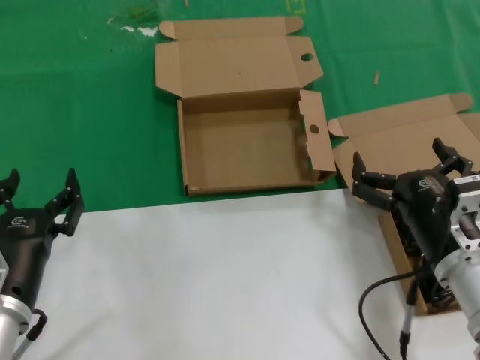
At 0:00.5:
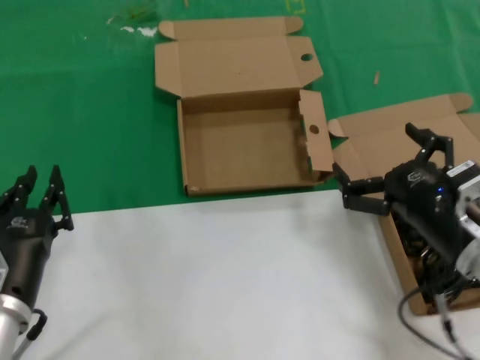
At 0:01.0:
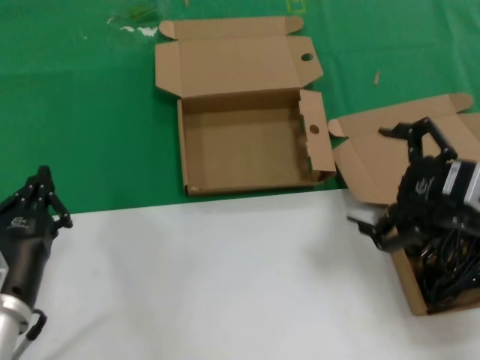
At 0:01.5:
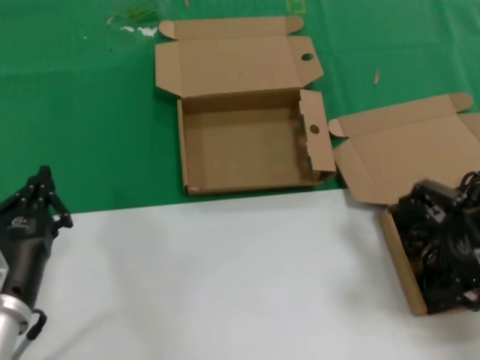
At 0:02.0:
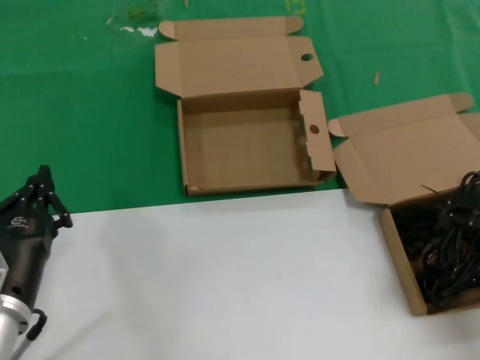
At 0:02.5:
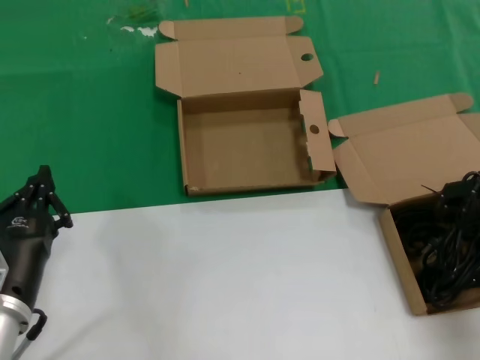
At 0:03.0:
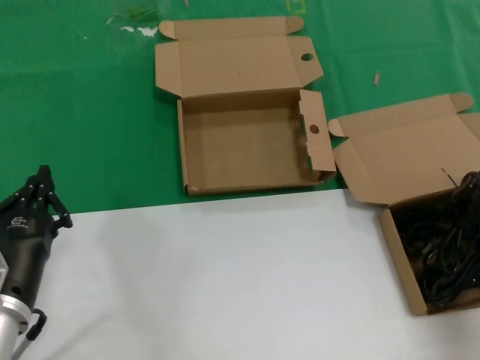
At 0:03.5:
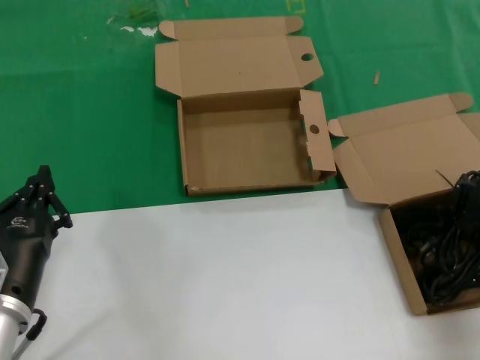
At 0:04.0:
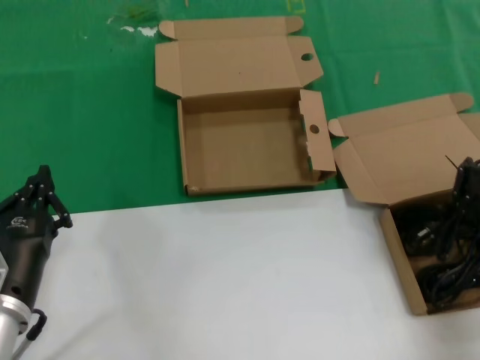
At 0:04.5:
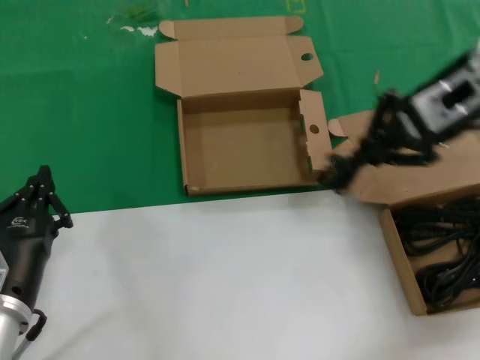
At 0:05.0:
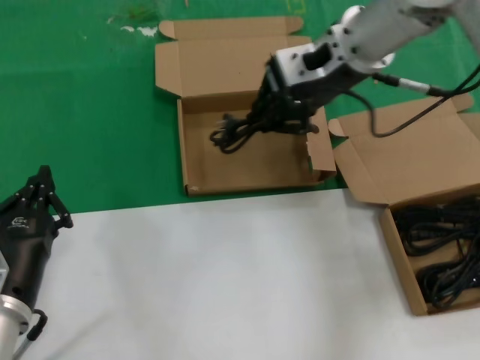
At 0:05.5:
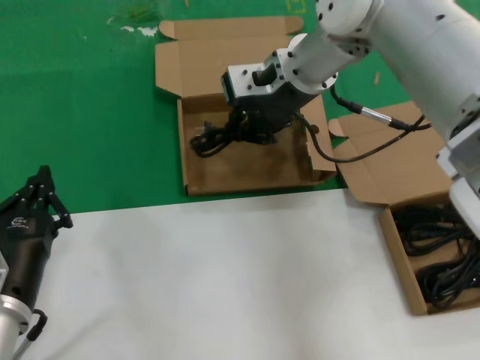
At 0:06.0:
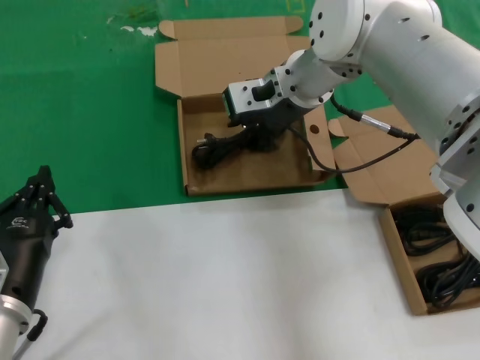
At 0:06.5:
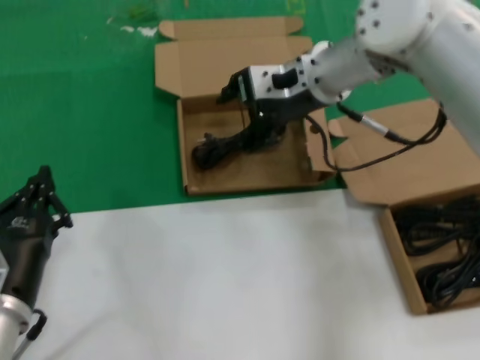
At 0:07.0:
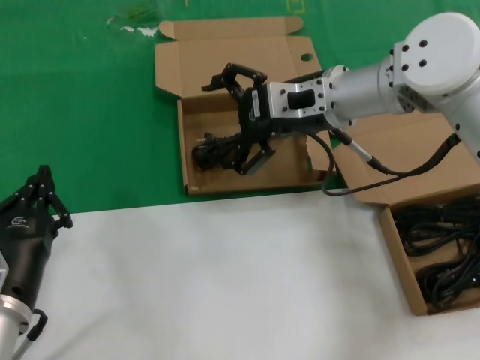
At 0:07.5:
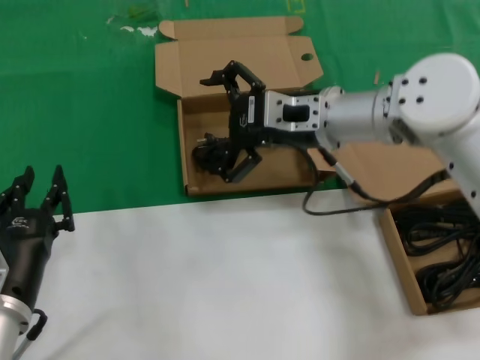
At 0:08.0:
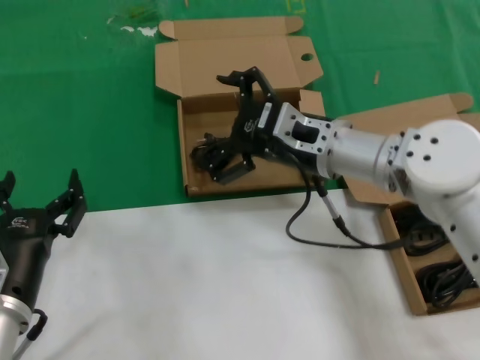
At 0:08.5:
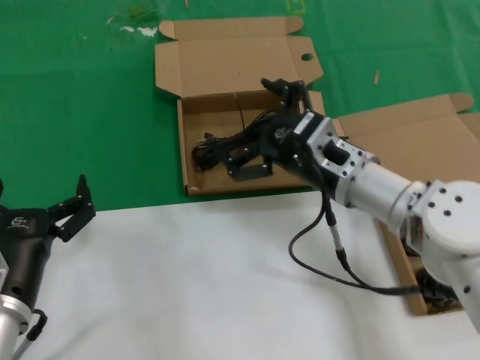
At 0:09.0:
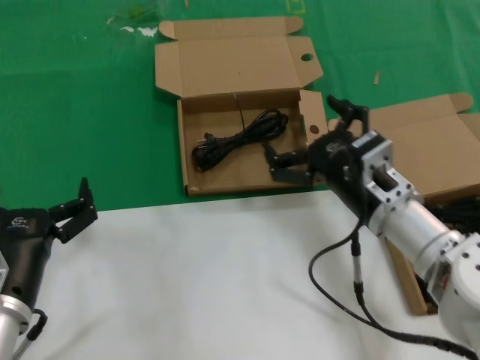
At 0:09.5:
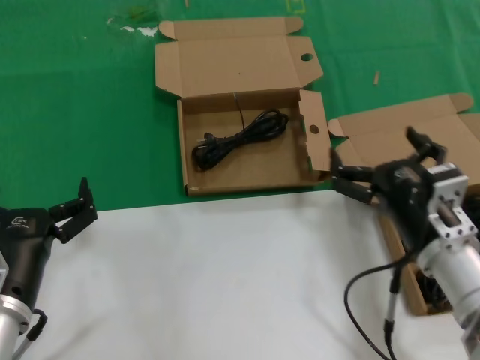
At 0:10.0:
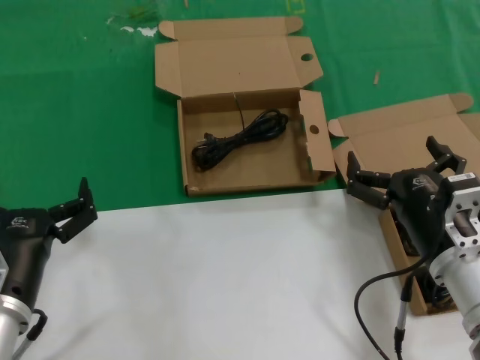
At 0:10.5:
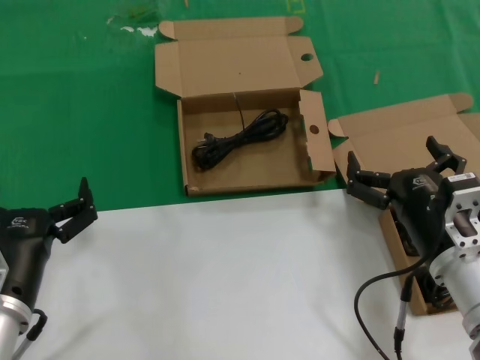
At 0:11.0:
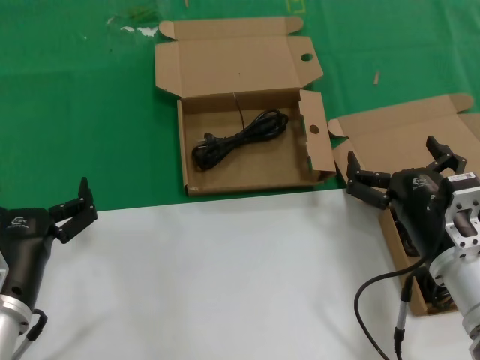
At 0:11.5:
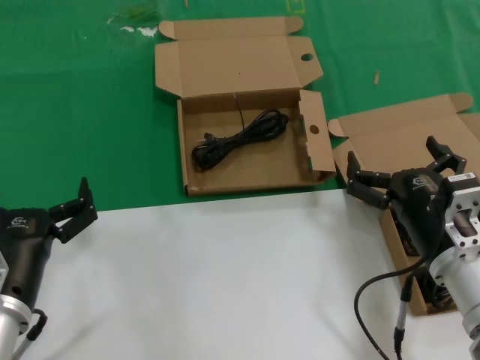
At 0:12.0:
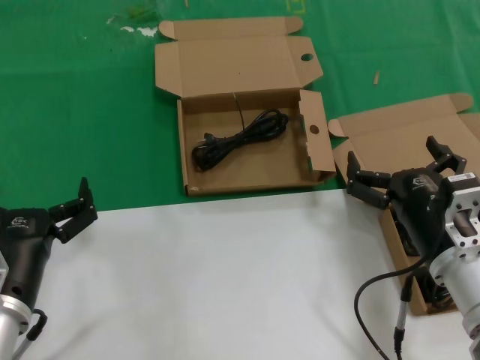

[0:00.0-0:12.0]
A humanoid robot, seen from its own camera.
Task of the whole recording: take the parts from the box containing them and put them into an empty box.
Step, 0:00.0 to 0:03.5: Grasp the data cable.
Step, 0:04.0 to 0:06.5: Place the data cable in the another box.
0:00.0 to 0:02.0: The right hand travels upward and to the right by about 25 cm.
0:02.0 to 0:04.0: The right hand is displaced forward by some 5 cm.
0:04.0 to 0:06.0: The right hand is displaced to the left and forward by about 30 cm.
0:06.0 to 0:08.0: The right hand travels backward, downward and to the right by about 15 cm.
0:08.0 to 0:10.0: The right hand shifts approximately 20 cm backward, downward and to the right.
0:10.0 to 0:12.0: The two hands keep their place.

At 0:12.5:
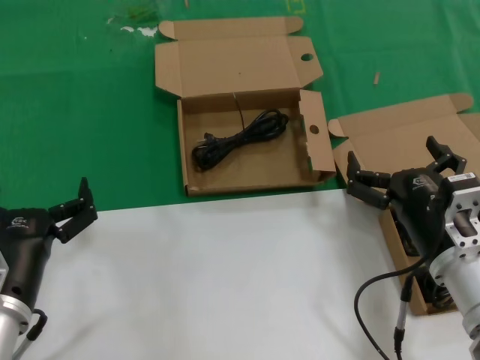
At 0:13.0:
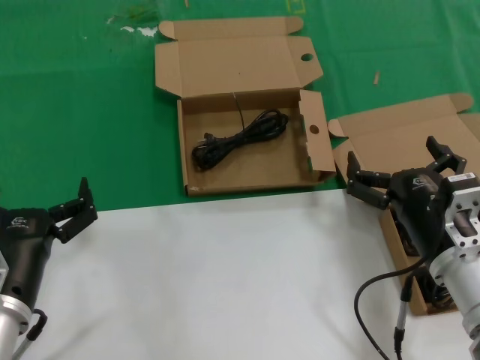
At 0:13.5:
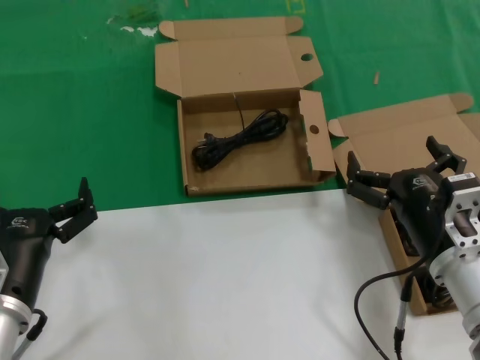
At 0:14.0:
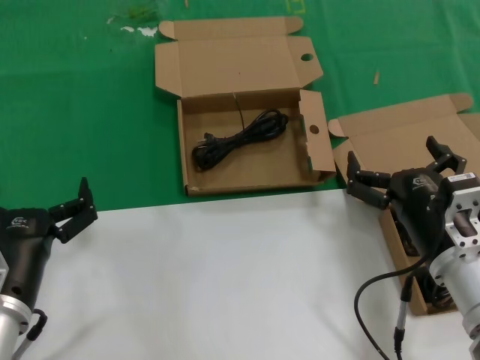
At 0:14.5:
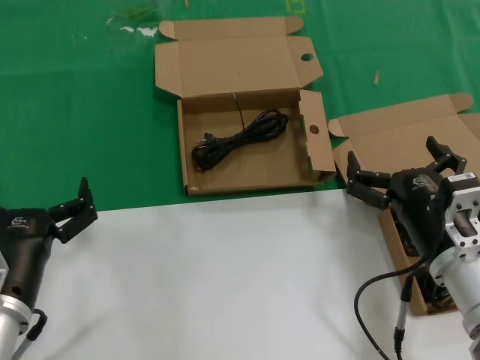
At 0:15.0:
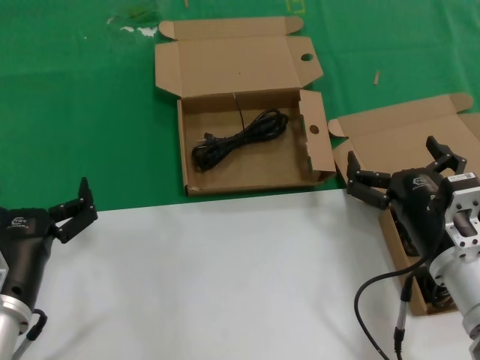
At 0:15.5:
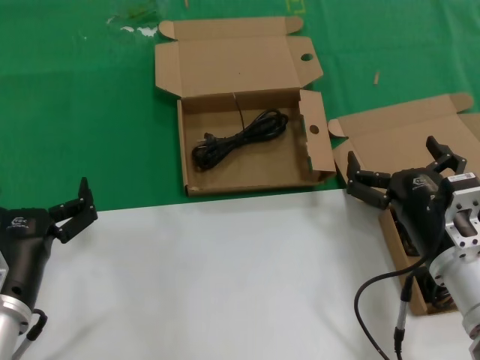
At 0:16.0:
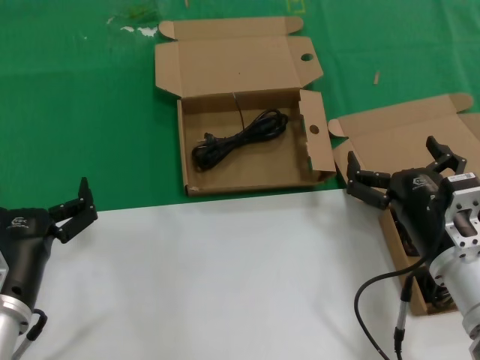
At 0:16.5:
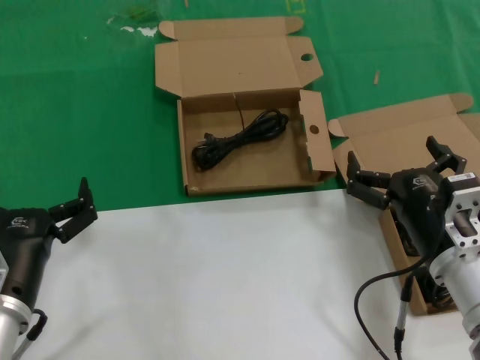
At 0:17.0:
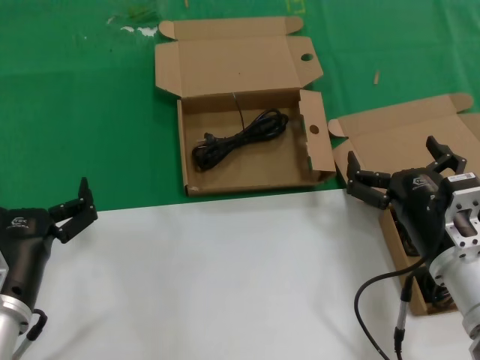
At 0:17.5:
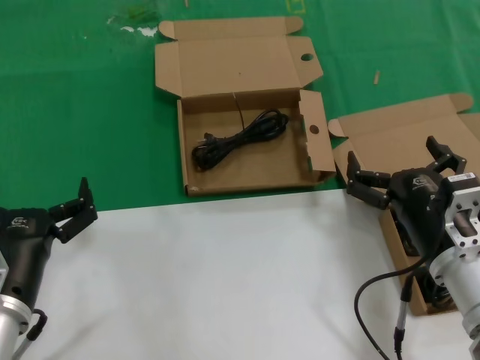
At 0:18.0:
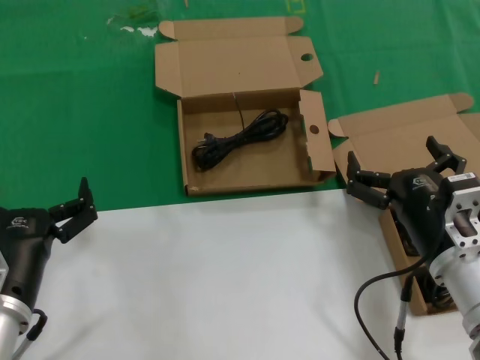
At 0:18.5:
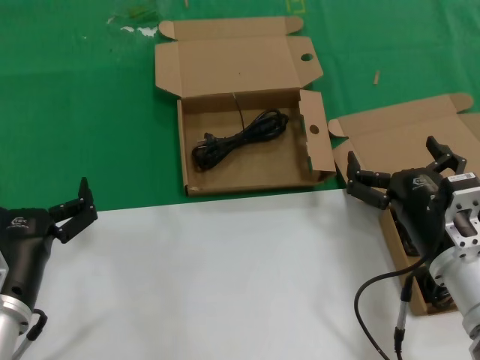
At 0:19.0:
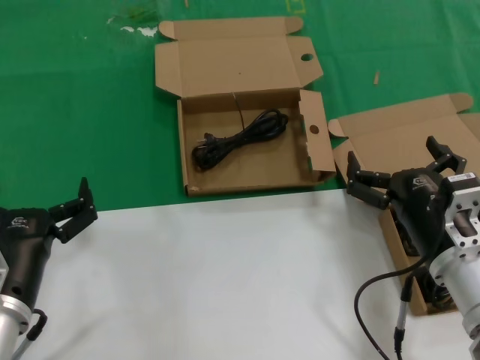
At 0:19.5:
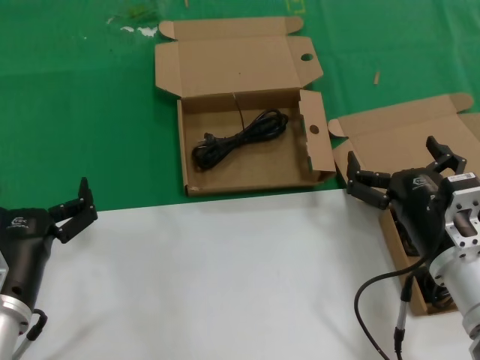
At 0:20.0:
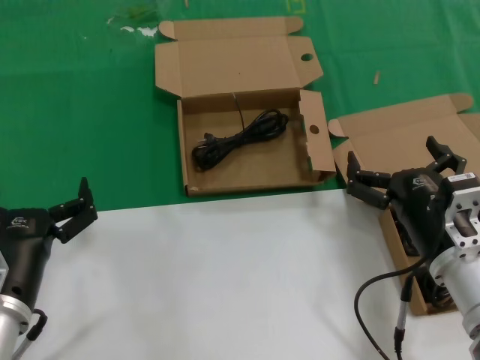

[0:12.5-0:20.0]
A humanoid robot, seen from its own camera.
Task of the whole recording: take the parts from the box containing them and put them into an empty box.
0:12.5 to 0:20.0: Neither hand changes place.

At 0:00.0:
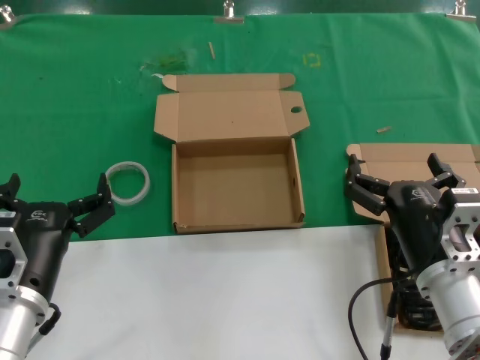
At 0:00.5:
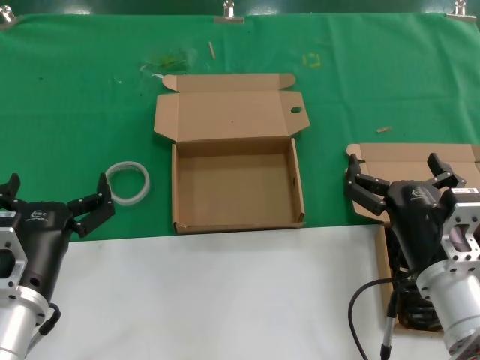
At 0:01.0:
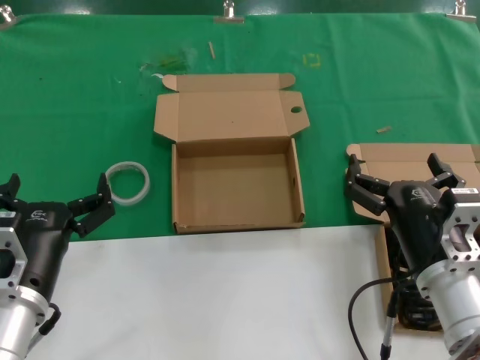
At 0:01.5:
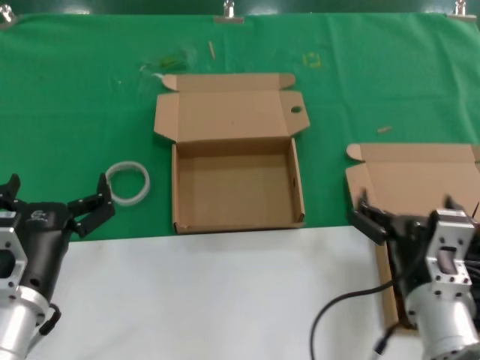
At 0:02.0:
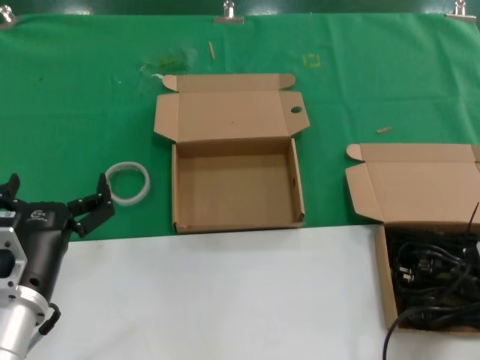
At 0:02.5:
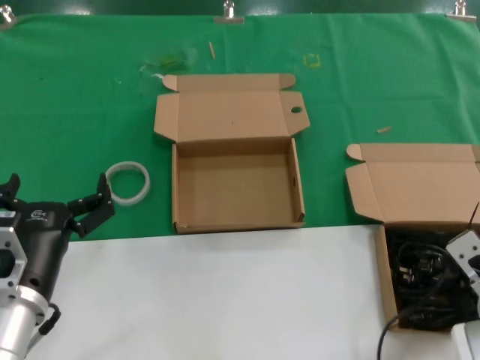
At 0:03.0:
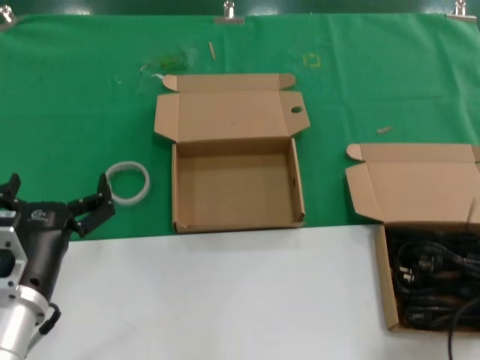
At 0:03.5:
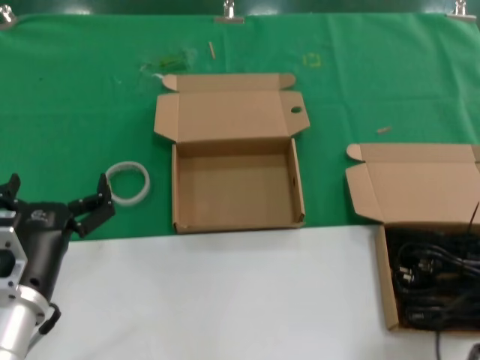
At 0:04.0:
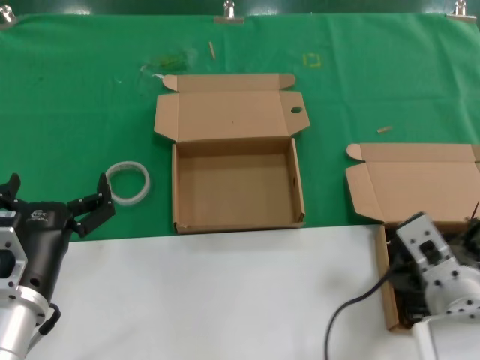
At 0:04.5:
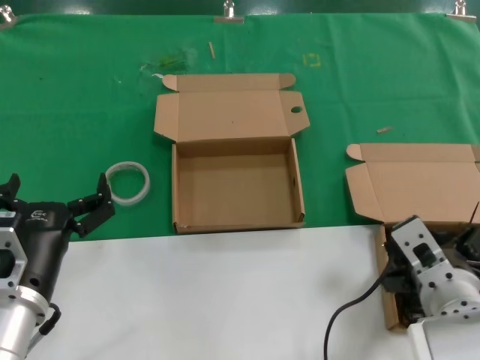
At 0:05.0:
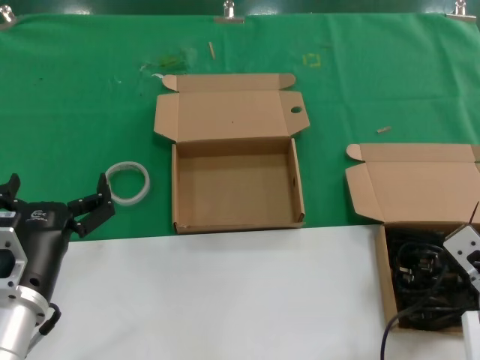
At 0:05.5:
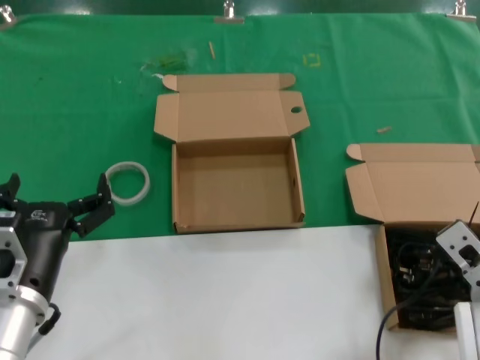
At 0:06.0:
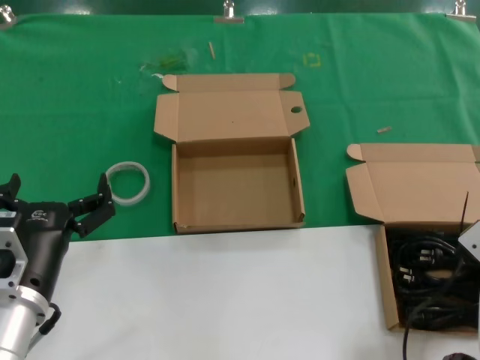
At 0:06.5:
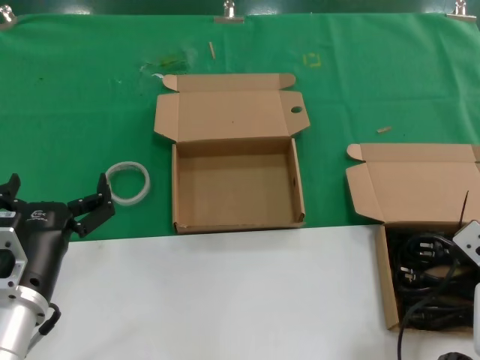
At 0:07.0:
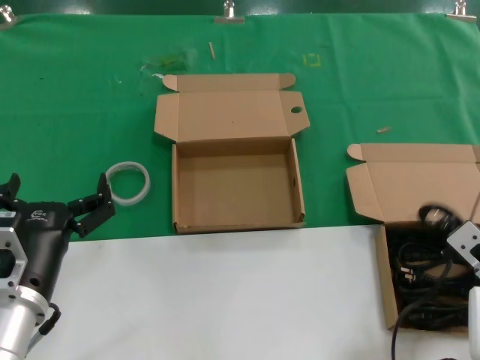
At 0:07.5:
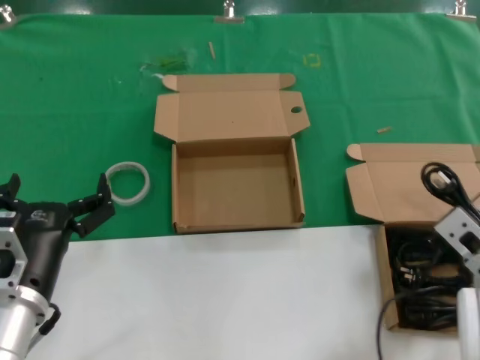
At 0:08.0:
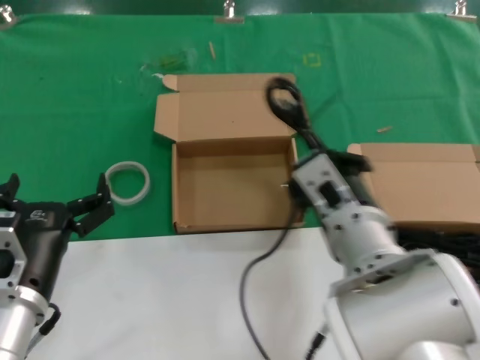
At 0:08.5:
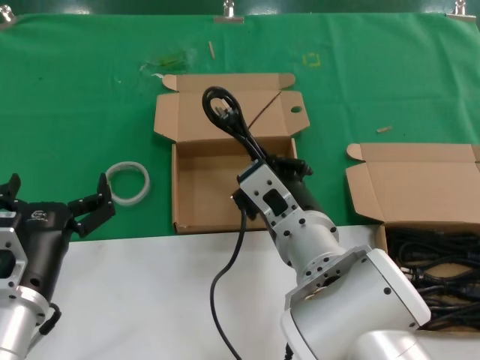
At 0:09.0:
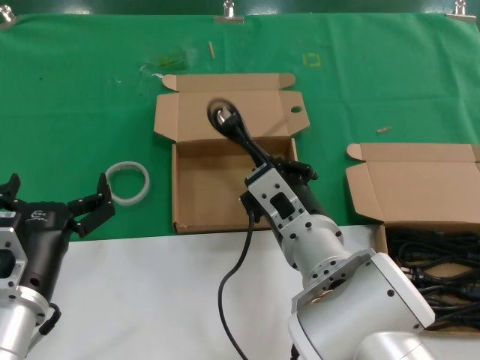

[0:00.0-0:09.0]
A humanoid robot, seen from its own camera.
Task of the whole recording: take the parts from the box containing them and put them into an empty box.
Step, 0:00.0 to 0:07.5: Grasp the data cable.
0:02.0 to 0:04.5: The right hand reaches approximately 10 cm to the right, then returns.
0:04.5 to 0:07.0: The right hand travels to the right by roughly 10 cm.
0:07.0 to 0:09.0: The right hand shifts roughly 20 cm to the left.
